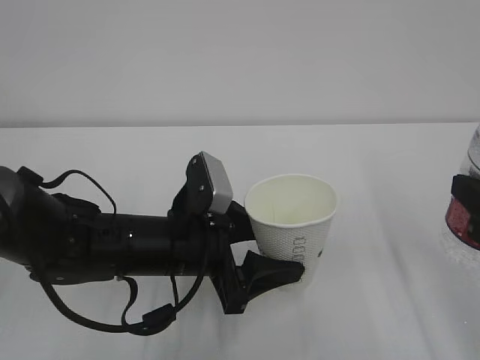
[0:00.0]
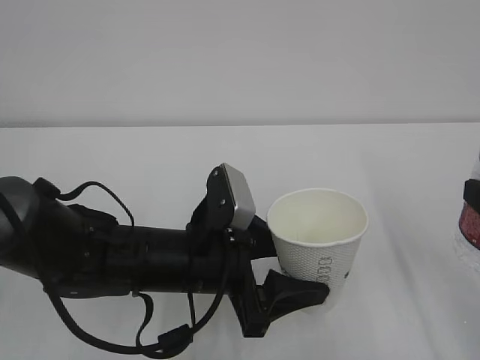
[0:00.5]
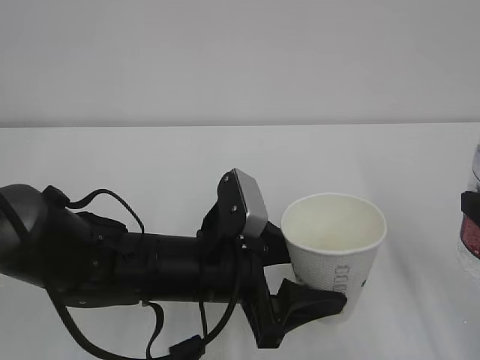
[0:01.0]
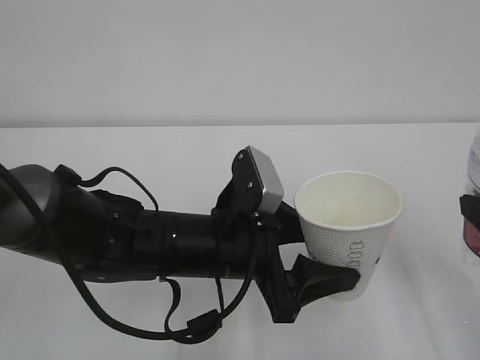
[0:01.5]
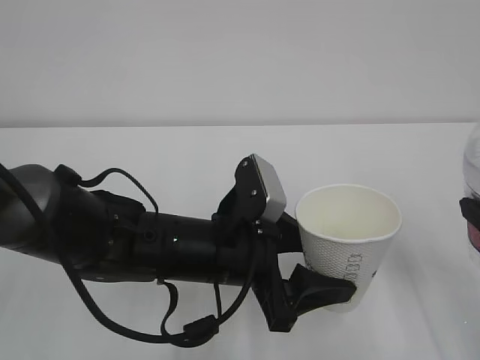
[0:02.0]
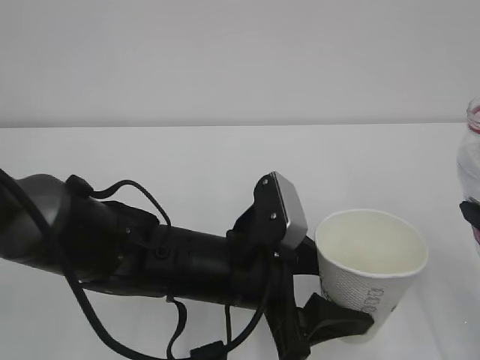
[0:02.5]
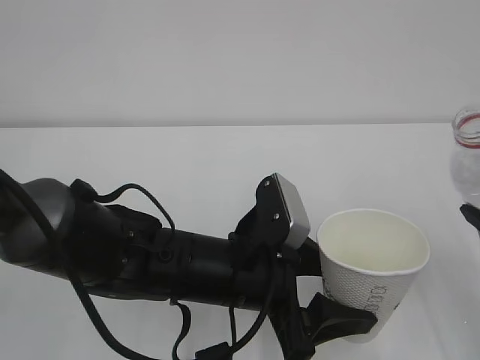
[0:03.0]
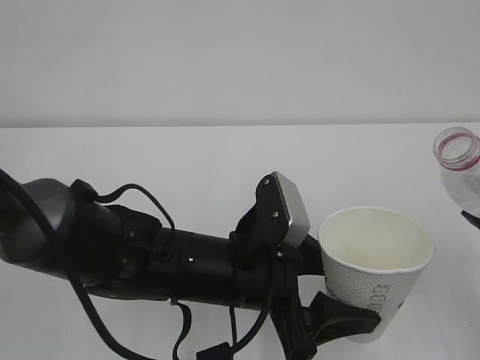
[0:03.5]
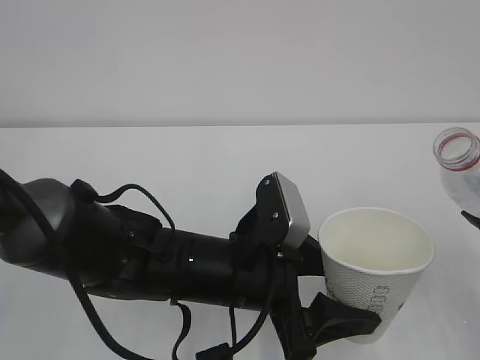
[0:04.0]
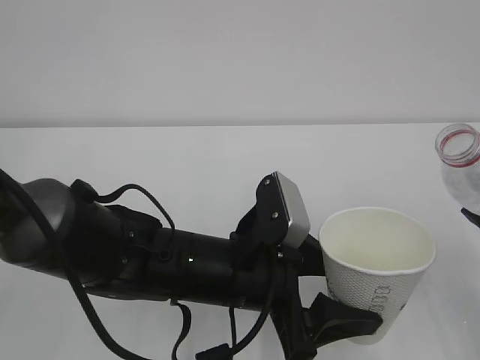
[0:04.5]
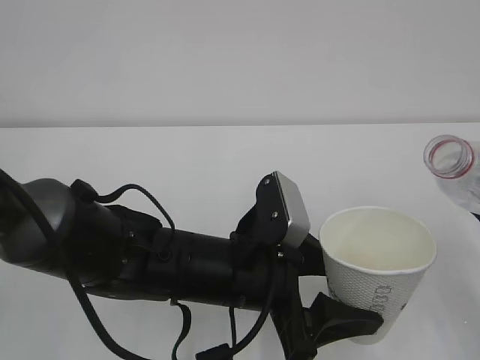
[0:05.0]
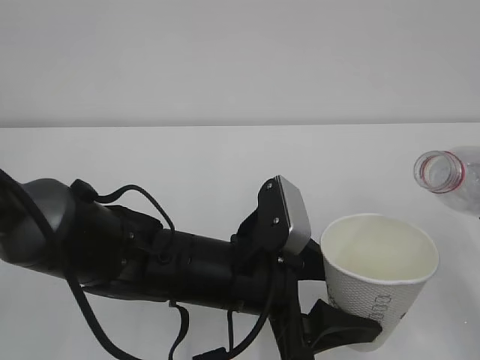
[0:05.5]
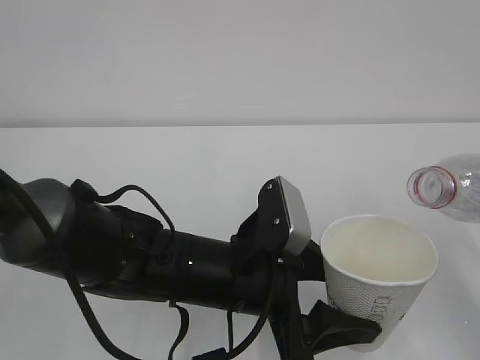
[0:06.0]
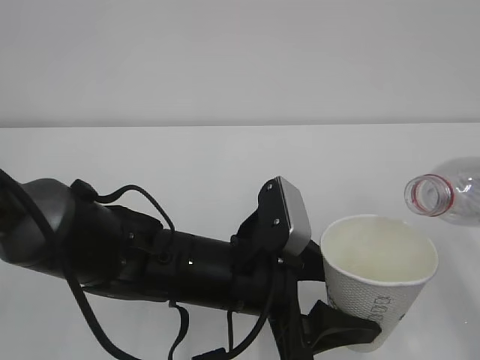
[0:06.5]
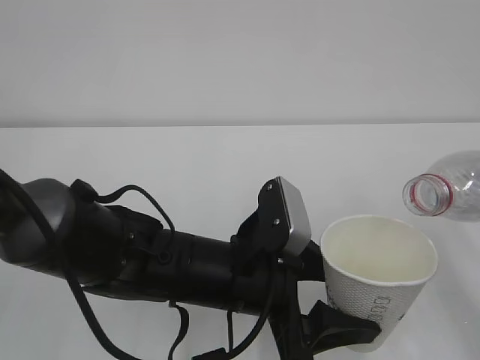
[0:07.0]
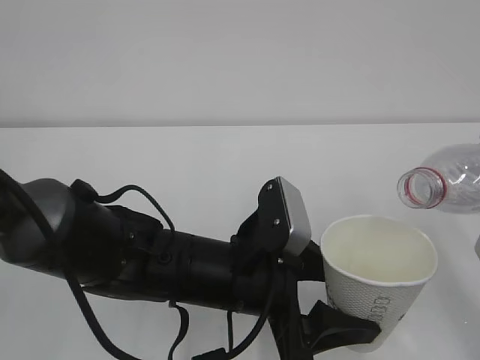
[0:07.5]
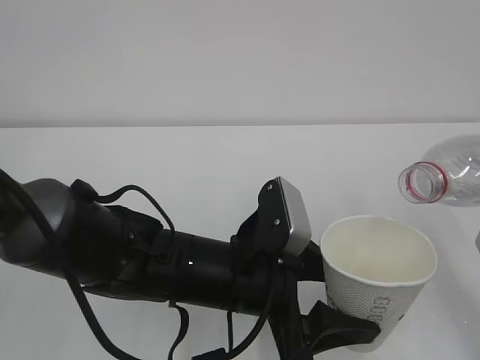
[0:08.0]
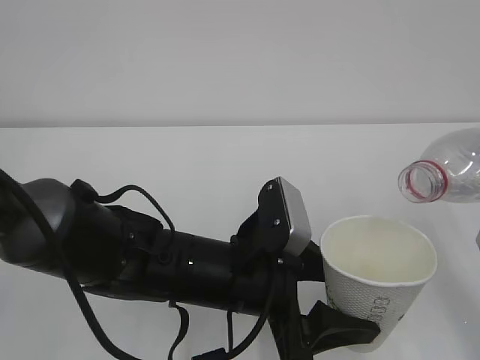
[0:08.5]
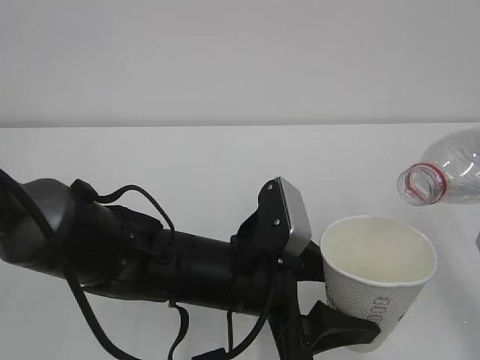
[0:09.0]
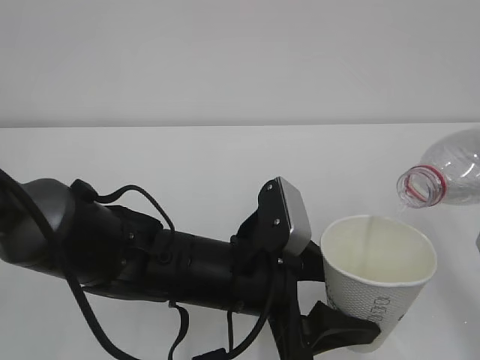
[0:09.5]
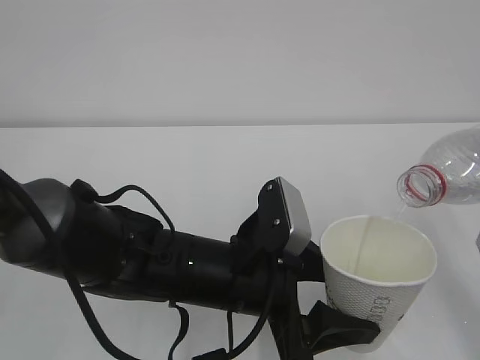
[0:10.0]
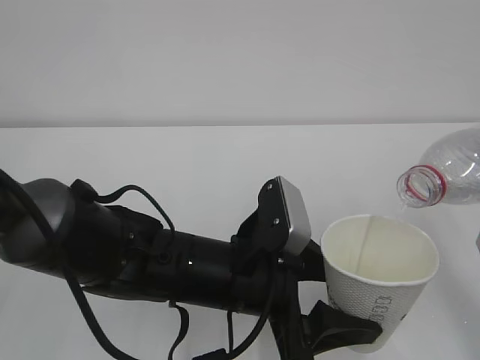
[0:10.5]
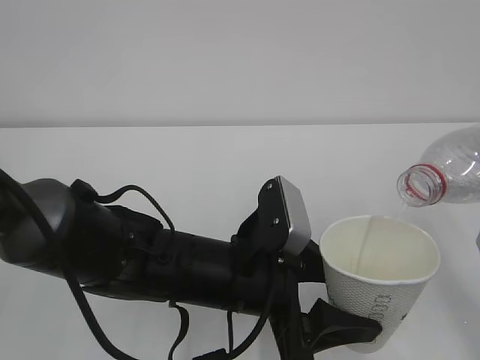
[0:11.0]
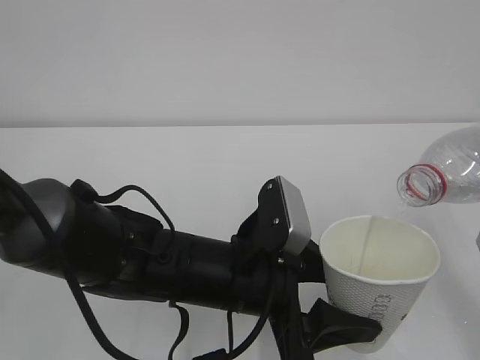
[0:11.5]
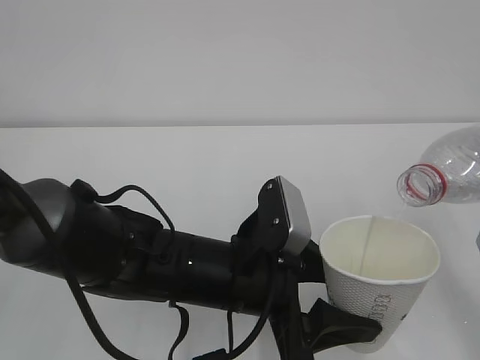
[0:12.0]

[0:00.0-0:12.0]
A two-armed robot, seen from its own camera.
0:00.0 to 0:02.0: There are only small adjustments of the grippers.
0:06.0 to 0:08.0: The grippers move only a little.
0:10.0 to 0:12.0: Both grippers stay put.

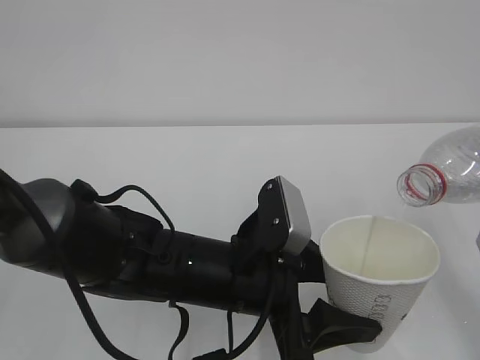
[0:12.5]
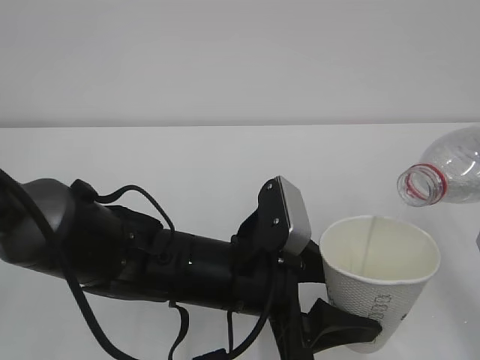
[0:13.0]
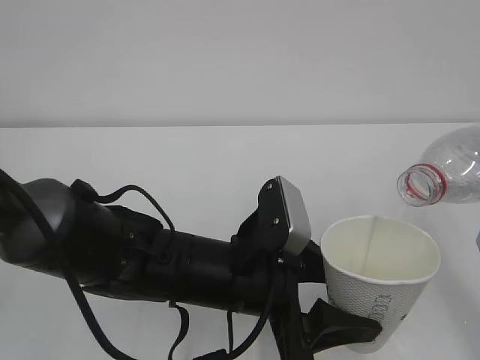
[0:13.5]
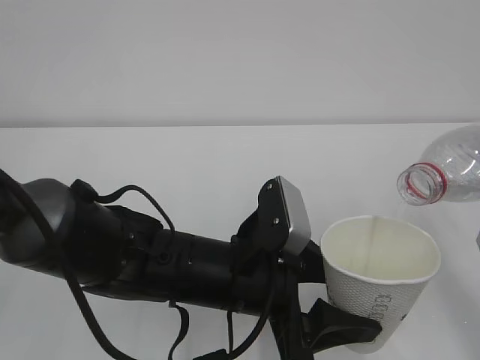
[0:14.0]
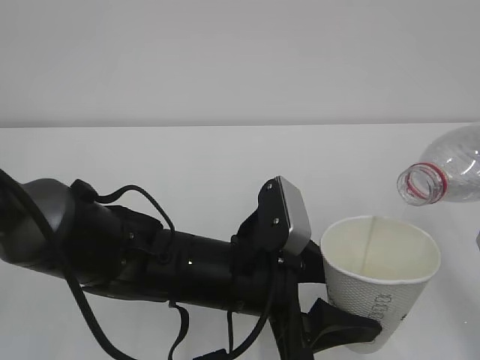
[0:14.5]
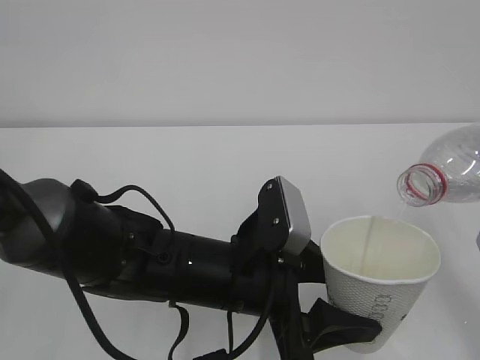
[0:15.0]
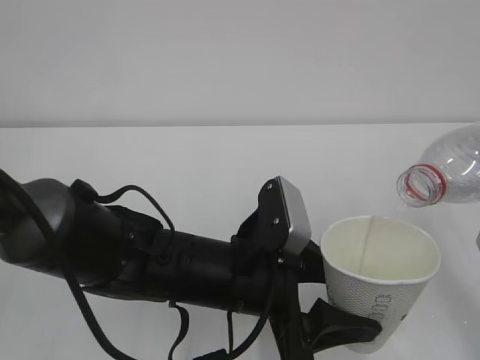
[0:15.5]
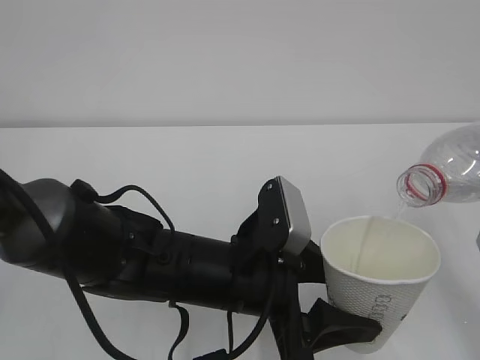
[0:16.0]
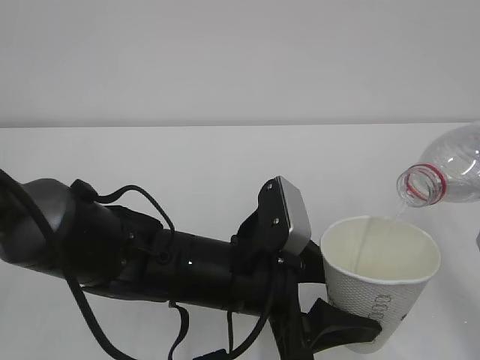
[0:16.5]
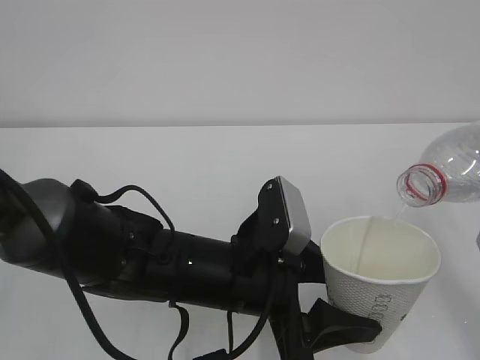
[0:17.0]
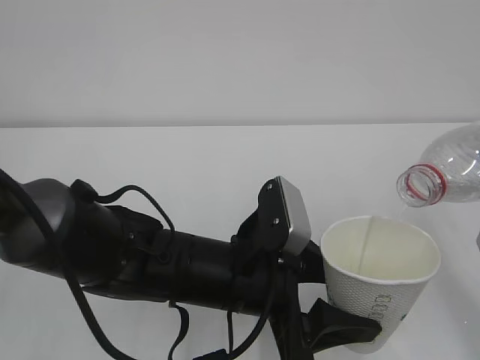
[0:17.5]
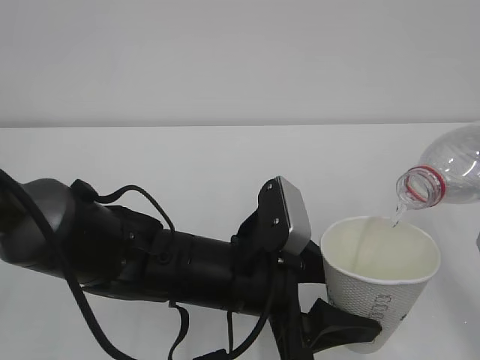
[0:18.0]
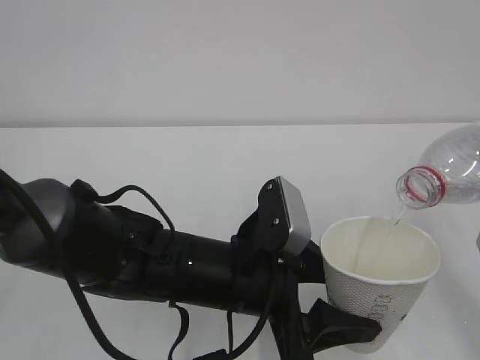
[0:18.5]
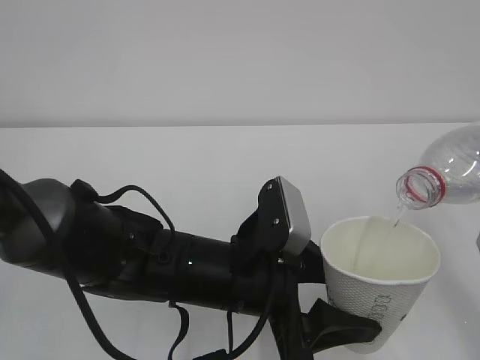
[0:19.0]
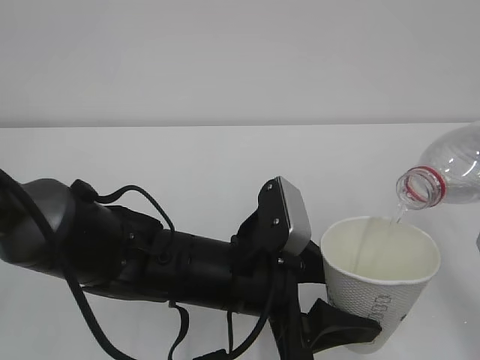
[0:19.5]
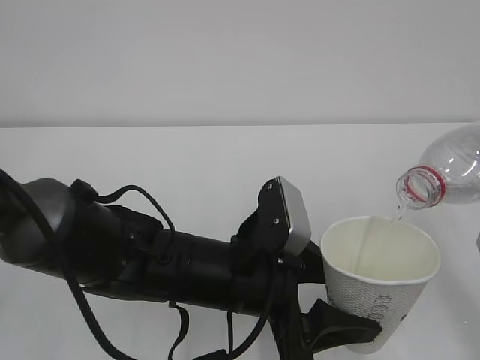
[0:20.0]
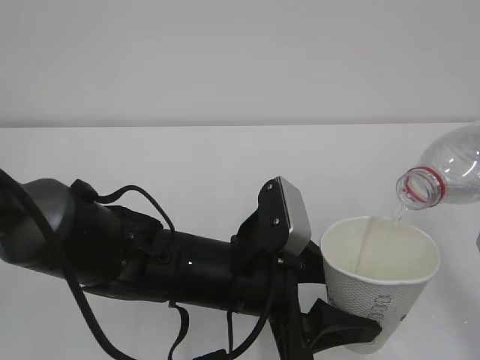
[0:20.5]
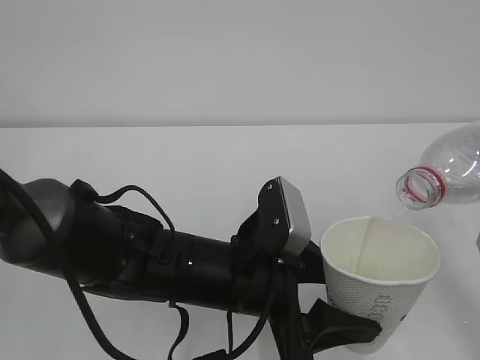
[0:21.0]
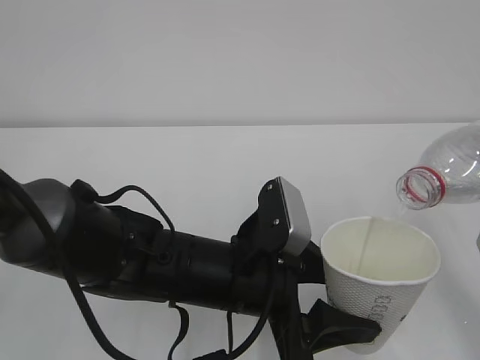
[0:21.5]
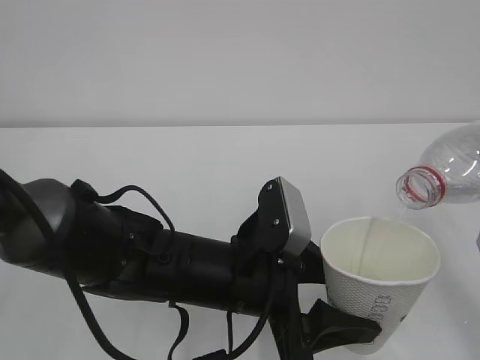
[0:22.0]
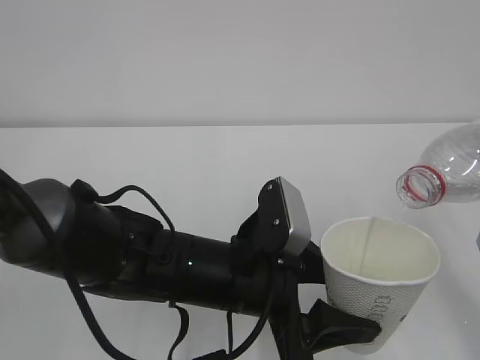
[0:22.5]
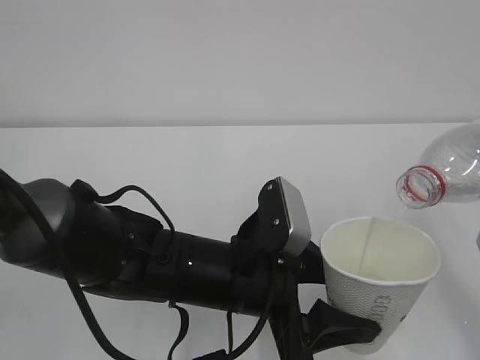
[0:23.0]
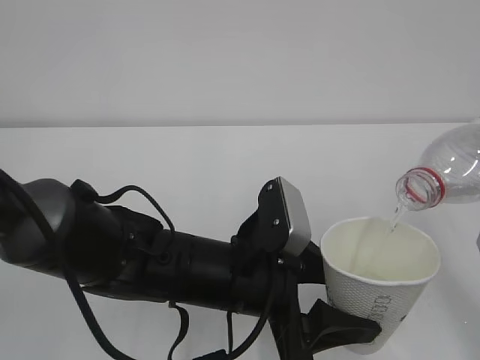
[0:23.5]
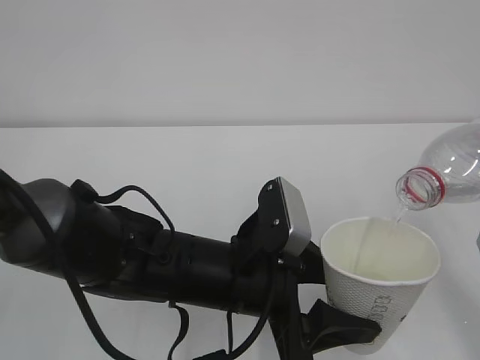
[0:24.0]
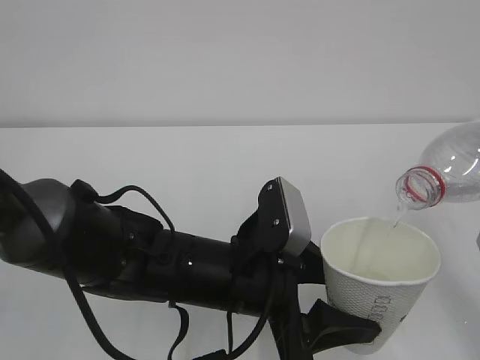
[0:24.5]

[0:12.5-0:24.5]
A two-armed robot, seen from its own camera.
0:12.5 to 0:24.5: Both grippers stay put.

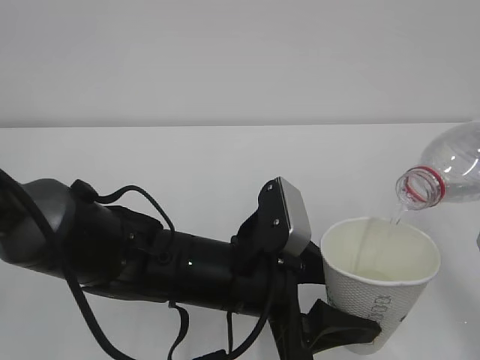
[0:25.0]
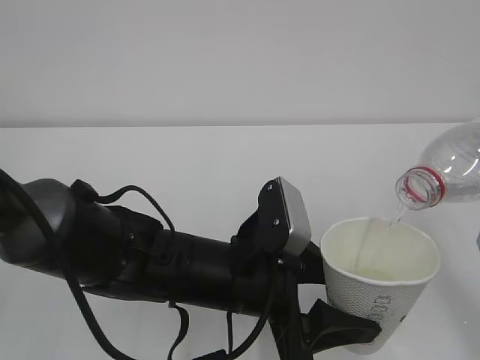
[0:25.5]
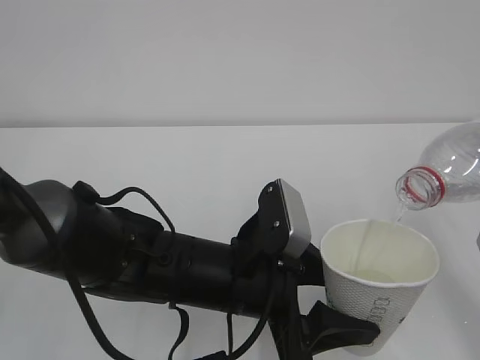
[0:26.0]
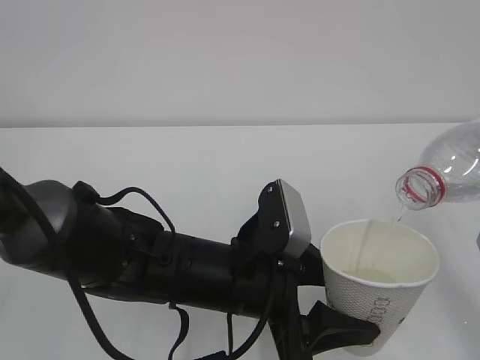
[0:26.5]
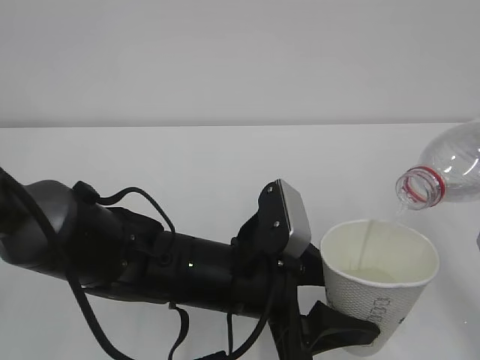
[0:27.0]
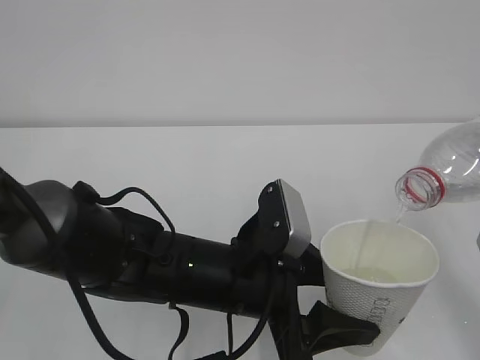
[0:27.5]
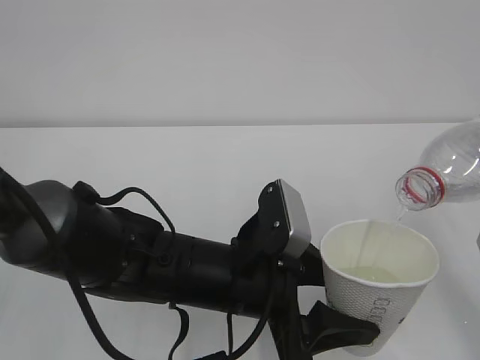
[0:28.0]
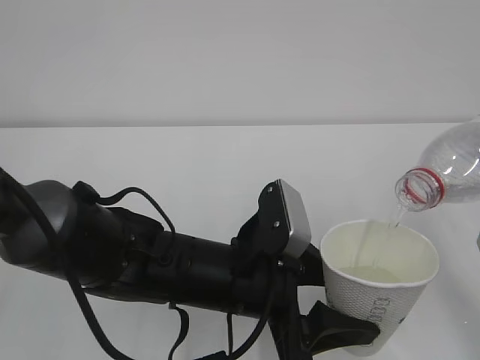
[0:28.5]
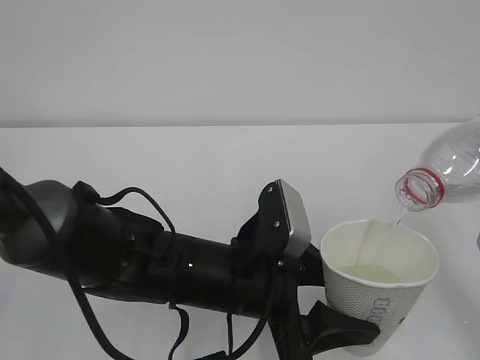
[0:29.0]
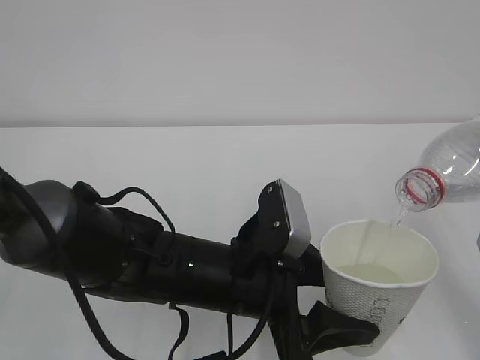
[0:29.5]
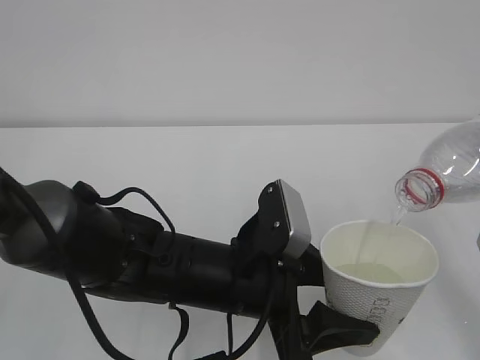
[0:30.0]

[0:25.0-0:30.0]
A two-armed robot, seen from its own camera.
0:25.0 to 0:30.0: Both grippers stay about where they are.
